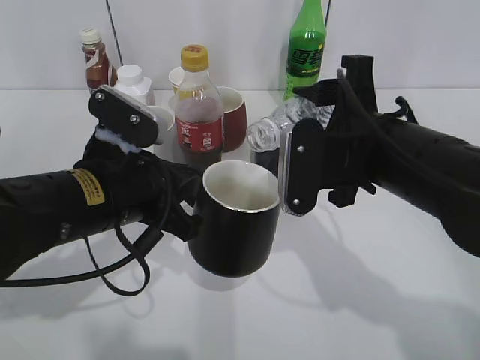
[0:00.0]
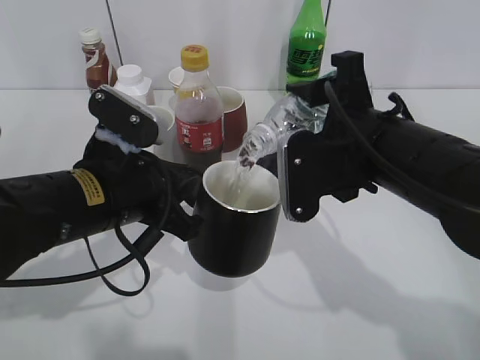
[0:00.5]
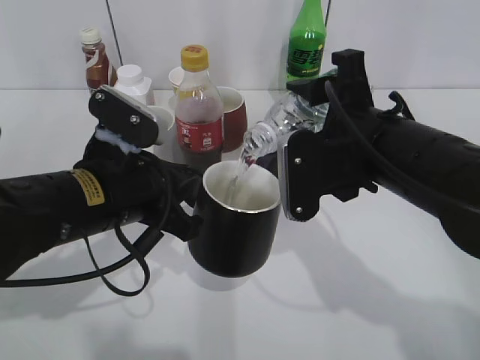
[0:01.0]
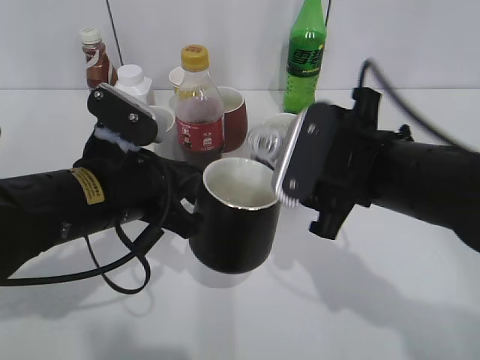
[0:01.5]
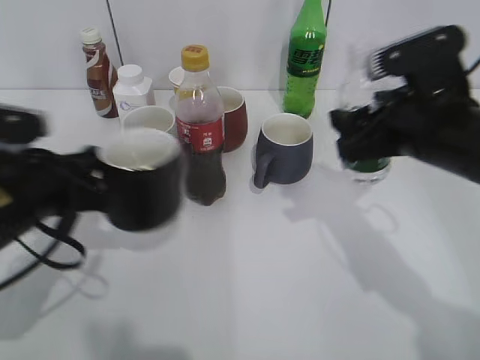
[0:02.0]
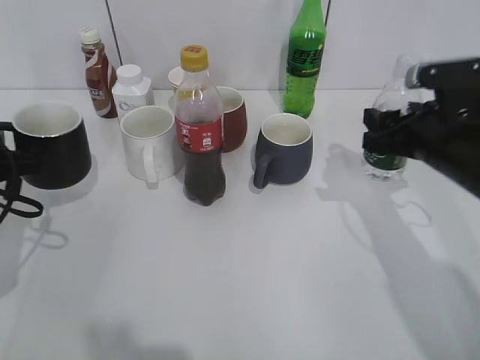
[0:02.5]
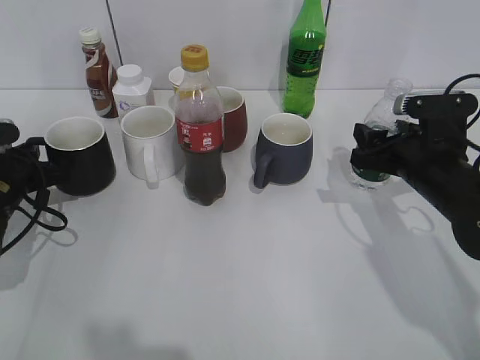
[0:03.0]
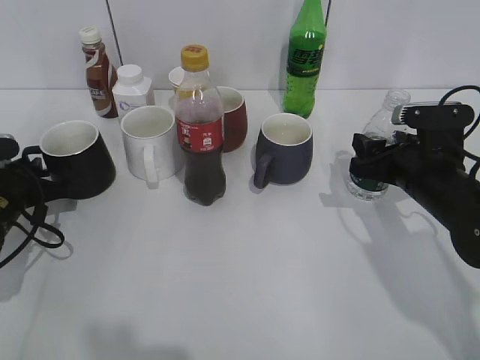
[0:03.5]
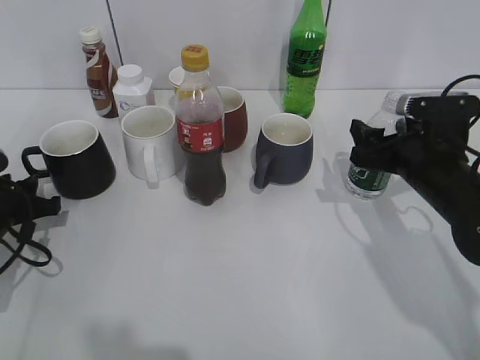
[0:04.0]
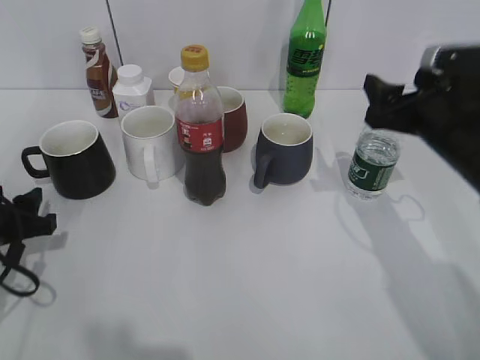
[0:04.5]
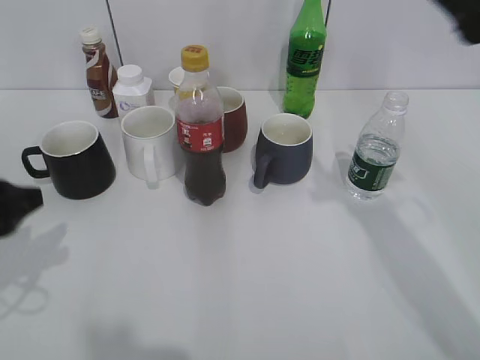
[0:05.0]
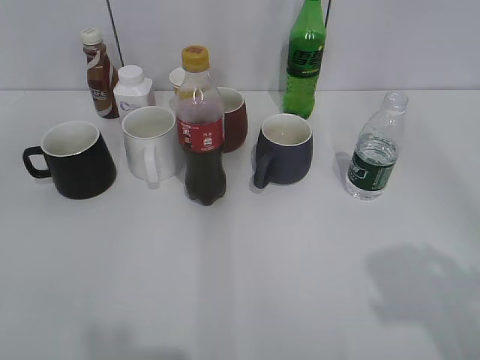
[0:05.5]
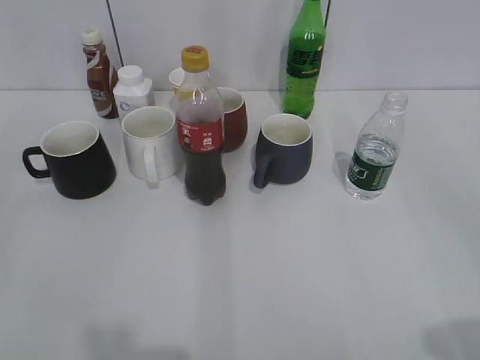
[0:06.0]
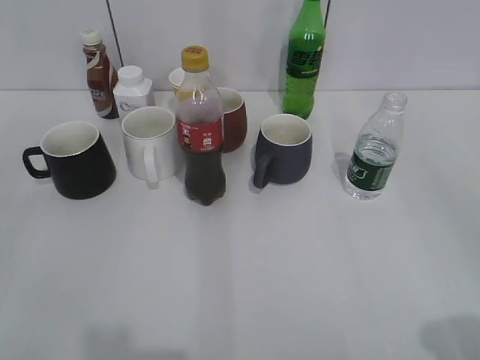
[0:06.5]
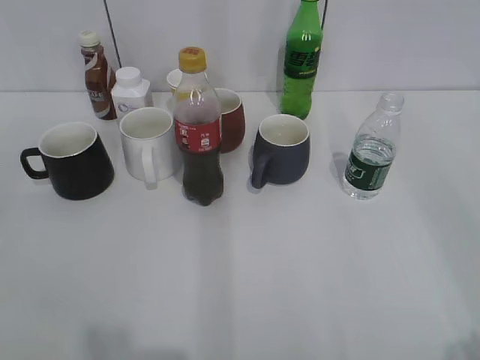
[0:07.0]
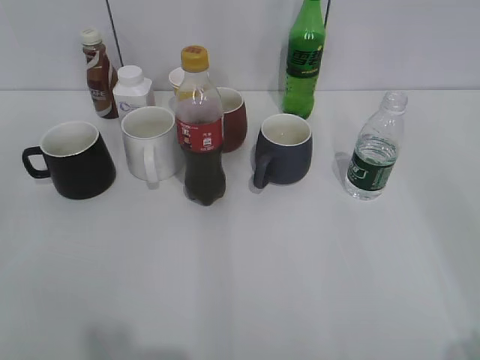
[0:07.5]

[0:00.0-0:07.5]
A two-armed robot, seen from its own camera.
Step, 0:02.0 to 0:04.0: Place the water bottle on the table with right gripper.
0:00.0 to 0:02.0: The left gripper goes roughly 5 cm to the left.
0:02.0 to 0:04.0: The left gripper travels to the left, downward and forward by about 15 cm, and opens up, while the right gripper travels downward and to the right by some 10 cm, and opens.
0:04.0 to 0:05.5: The grippers both shift upward and backward by about 35 cm.
0:05.5 to 0:07.5: The right gripper travels backward and downward by some 15 cm.

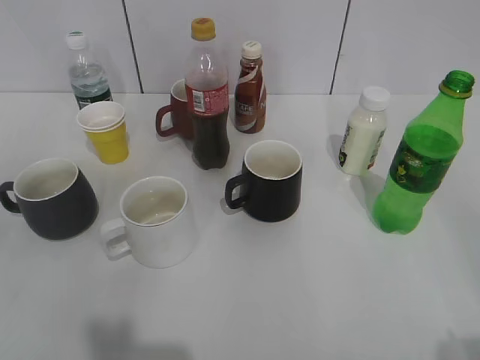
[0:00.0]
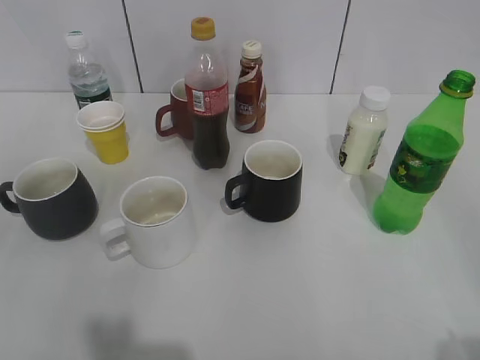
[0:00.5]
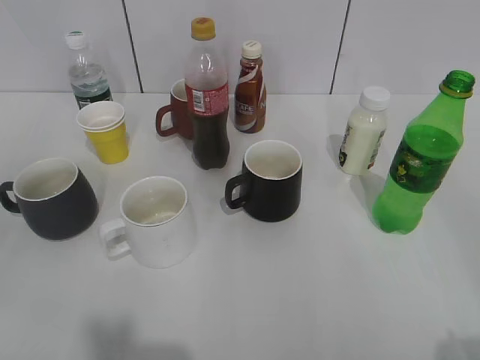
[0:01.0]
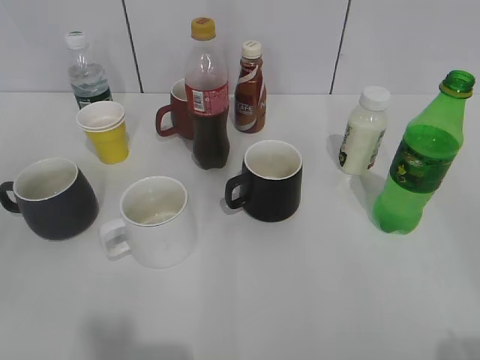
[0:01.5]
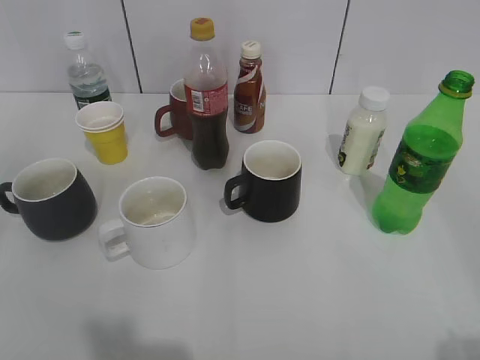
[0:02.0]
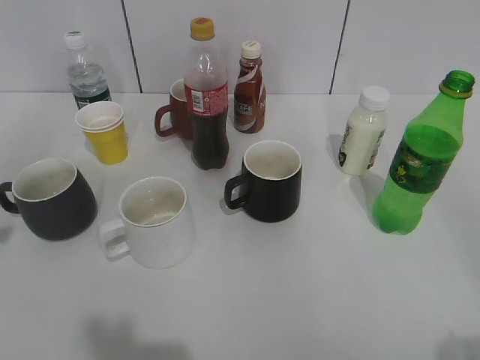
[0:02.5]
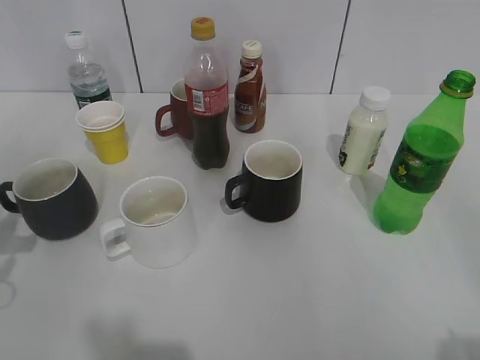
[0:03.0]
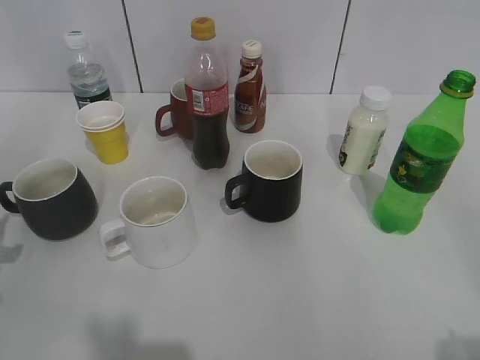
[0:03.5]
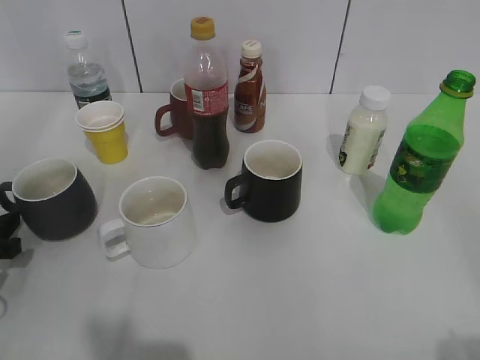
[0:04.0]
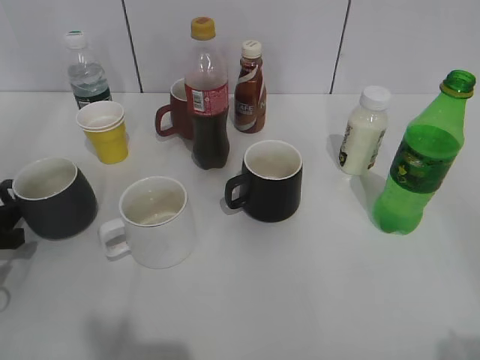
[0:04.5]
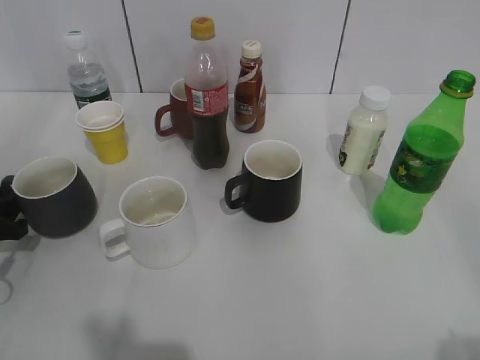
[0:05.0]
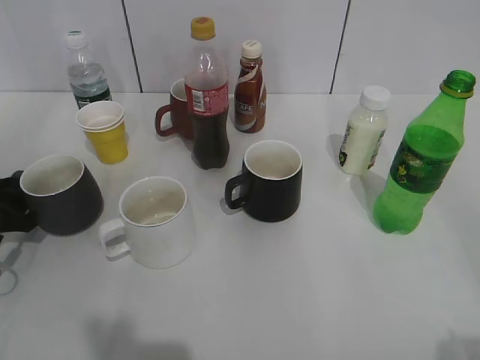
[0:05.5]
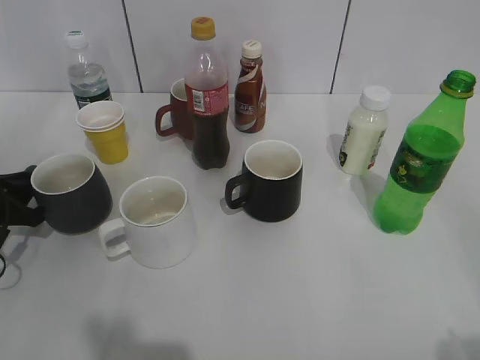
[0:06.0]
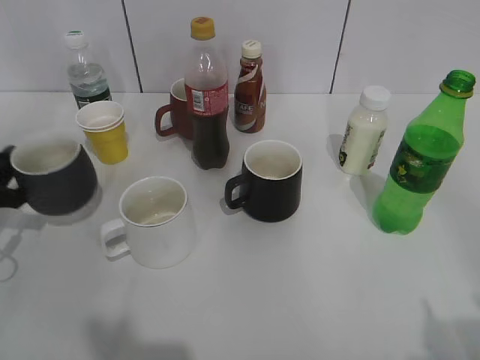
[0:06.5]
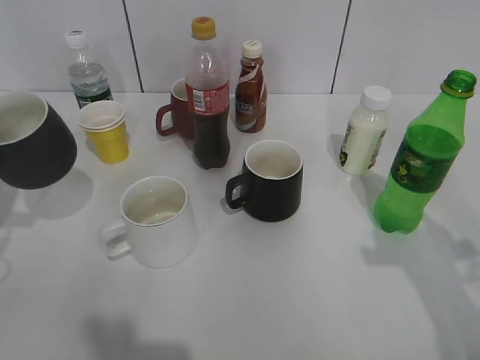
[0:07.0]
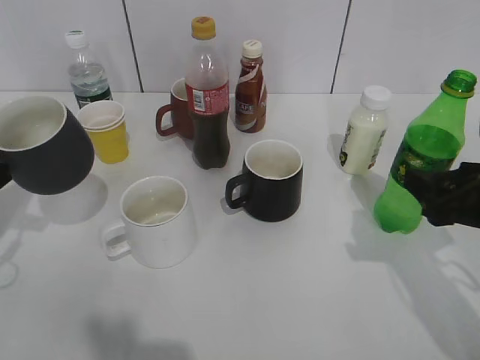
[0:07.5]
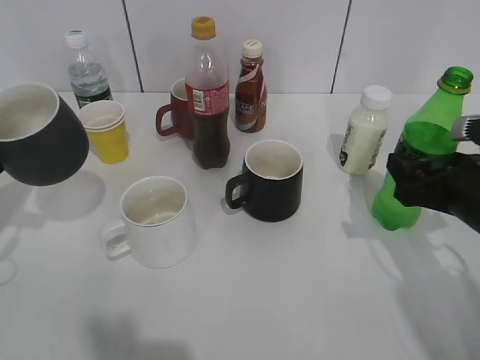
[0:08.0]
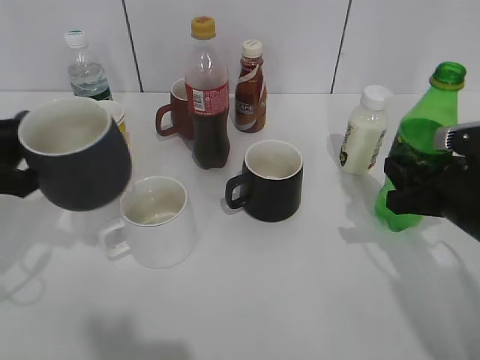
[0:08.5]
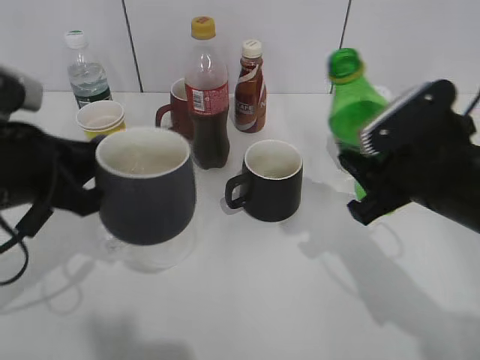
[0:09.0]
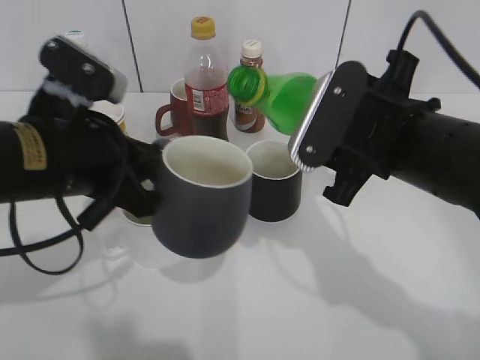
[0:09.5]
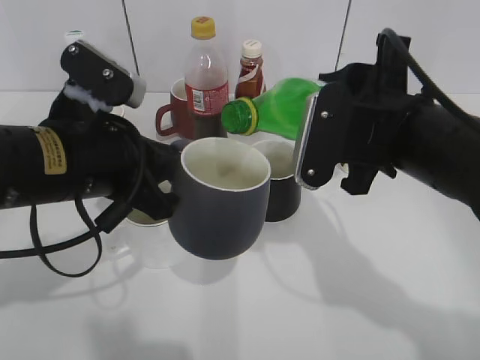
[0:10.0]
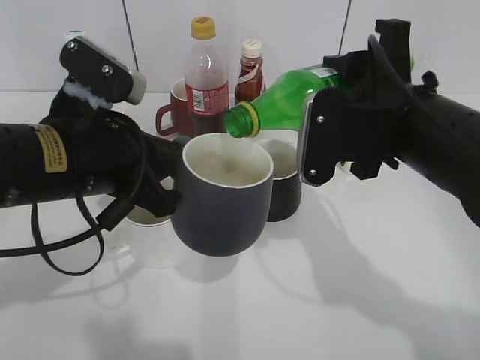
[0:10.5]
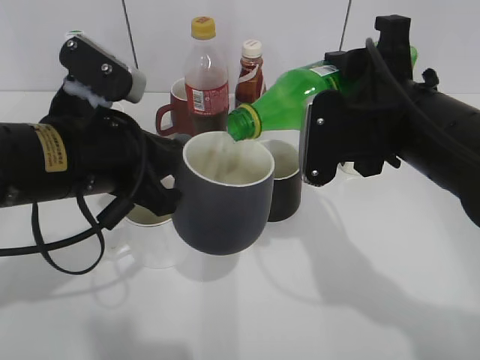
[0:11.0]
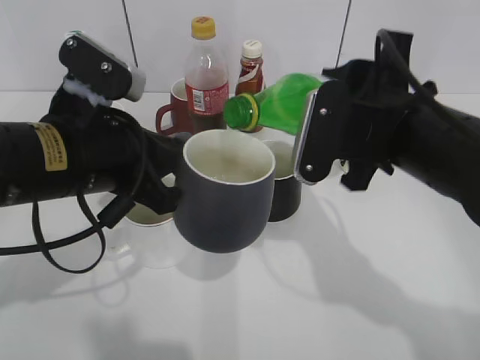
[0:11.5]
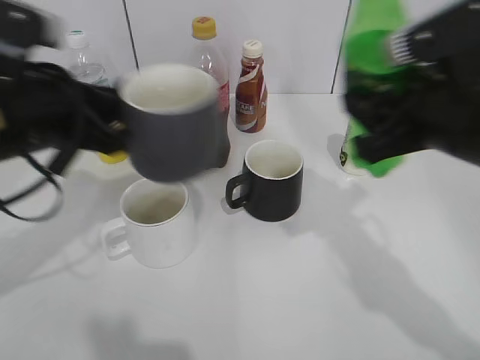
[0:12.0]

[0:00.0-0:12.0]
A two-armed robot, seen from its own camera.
Step, 0:03.5 to 0:06.0: Grasp the grey cup with left gripper.
Step, 0:07.0 to 0:08.0: Grasp the bottle with sprite with right gripper.
Step, 0:08.5 to 0:11.5: Pour the sprite from bottle to cup with right gripper.
0:02.0 to 0:04.0: The left gripper goes roughly 35 cm downward and forward, and opens.
0:04.0 to 0:06.0: The left gripper is displaced forward by some 5 cm, and closes up.
0:06.0 to 0:08.0: The right gripper travels forward and downward by approximately 30 cm, and opens up; the left gripper moves upward, approximately 10 cm.
0:08.0 to 0:10.0: The left gripper goes about 20 cm to the right, while the right gripper shifts roughly 15 cm to the left and upward, and closes up.

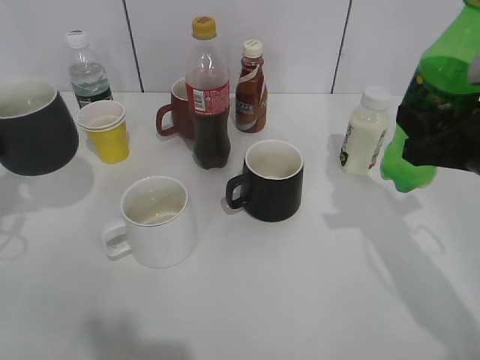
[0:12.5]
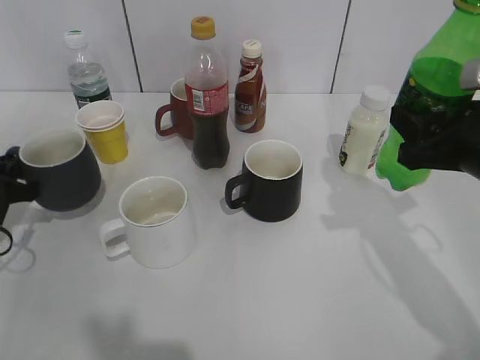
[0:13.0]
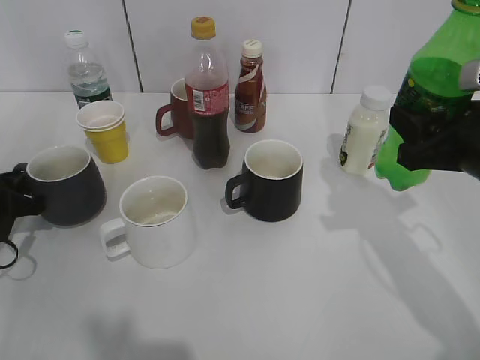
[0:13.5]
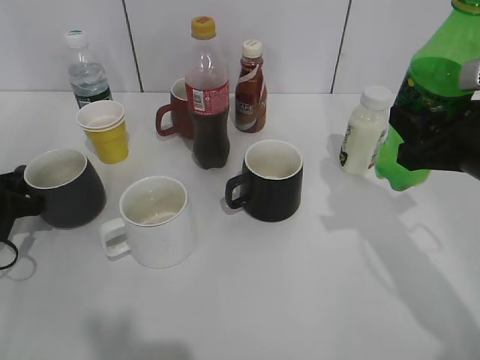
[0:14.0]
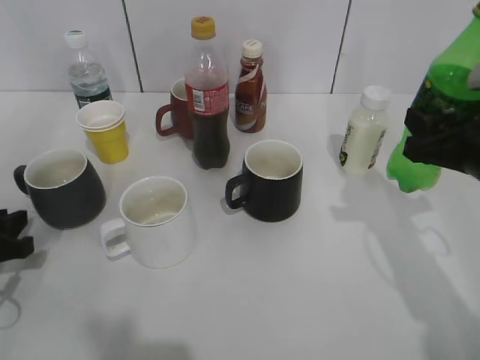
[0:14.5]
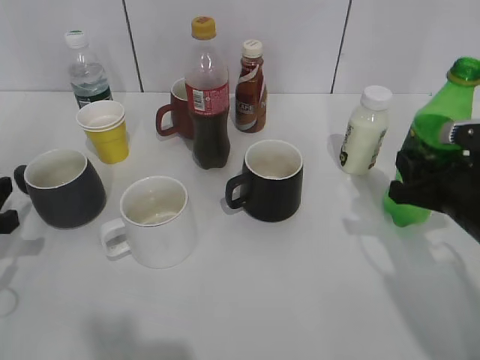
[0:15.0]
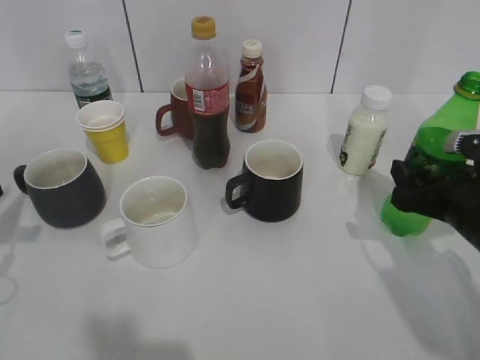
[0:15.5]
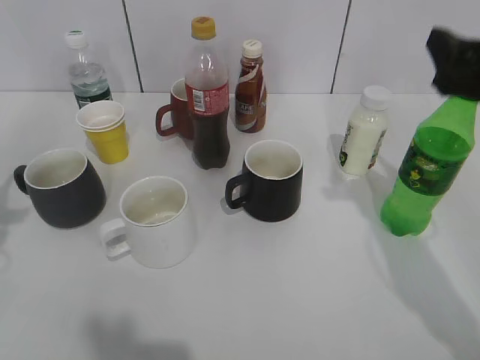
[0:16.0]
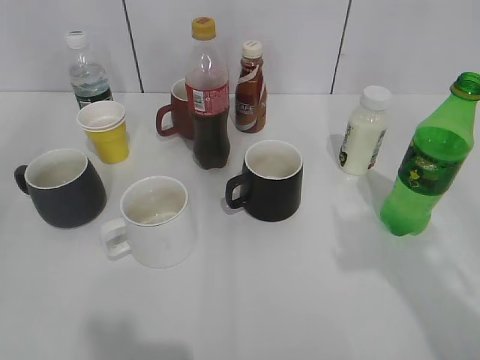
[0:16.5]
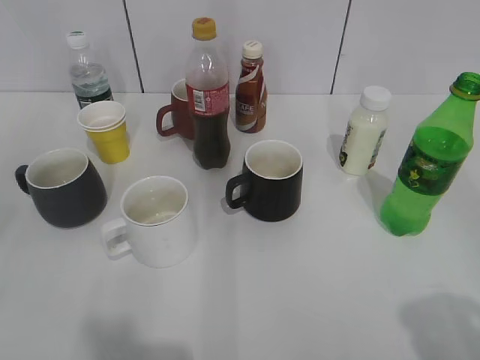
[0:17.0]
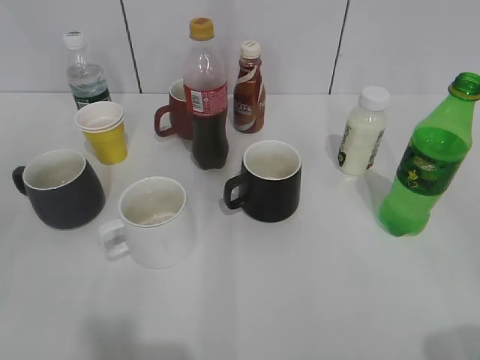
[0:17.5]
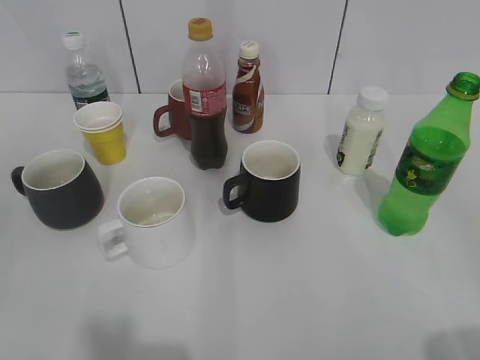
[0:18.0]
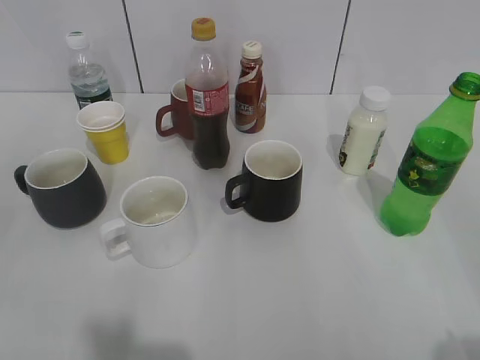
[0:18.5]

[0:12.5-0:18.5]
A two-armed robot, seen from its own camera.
Step, 0:12.5 to 0:14.0: Place the grey cup on the table with left gripper.
Step, 0:14.5 to 0:15.5: Place the sprite bottle on the table with right gripper.
0:12.5 to 0:14.5: The left gripper travels downward by roughly 10 cm, and opens its fingers.
0:14.5 to 0:16.5: The right gripper moves upward and backward, about 20 cm, and opens up. Meanwhile the left gripper heads upward, covering about 25 cm.
